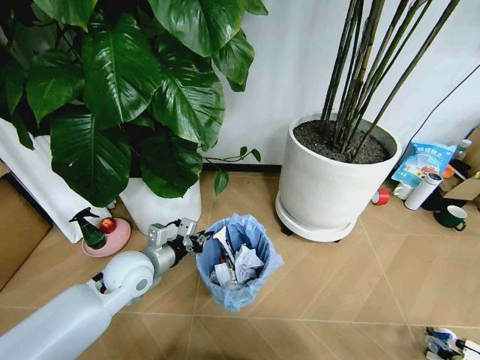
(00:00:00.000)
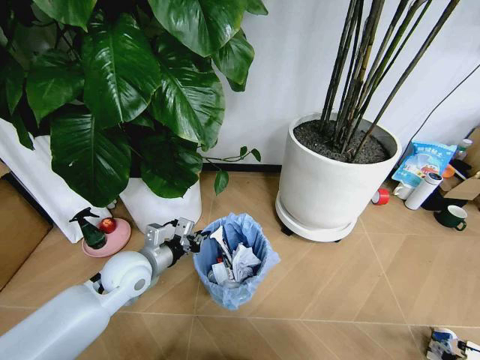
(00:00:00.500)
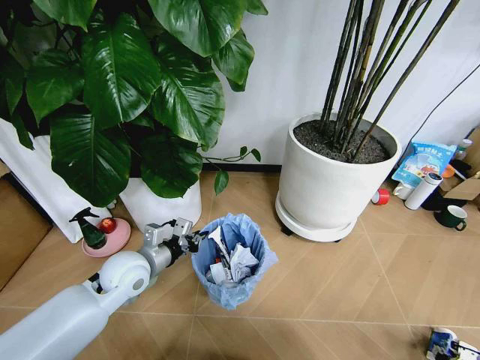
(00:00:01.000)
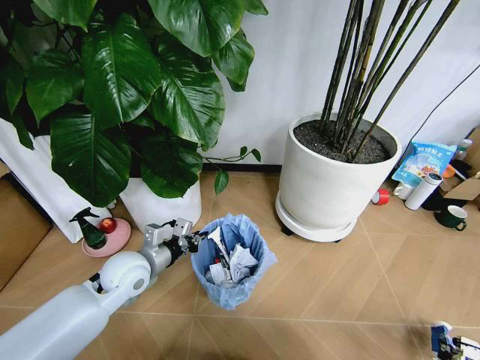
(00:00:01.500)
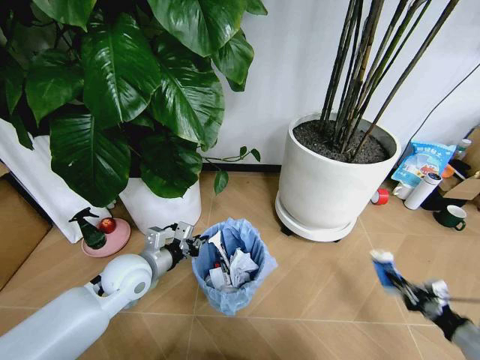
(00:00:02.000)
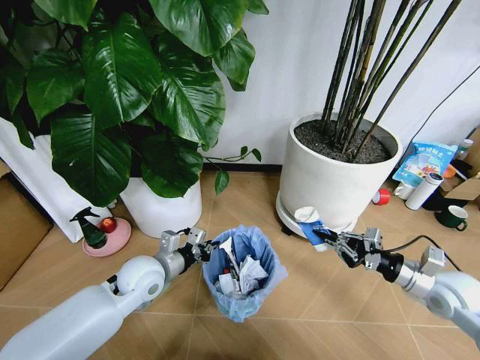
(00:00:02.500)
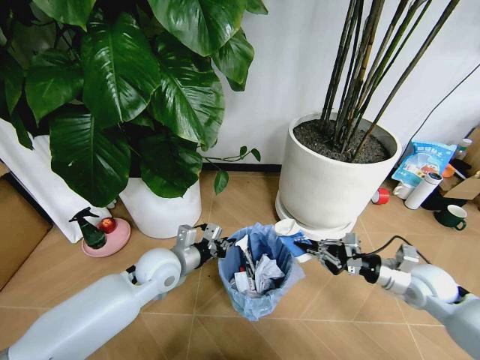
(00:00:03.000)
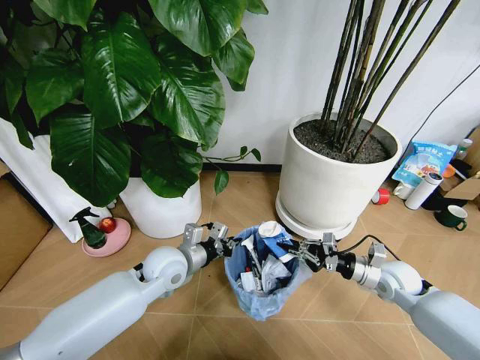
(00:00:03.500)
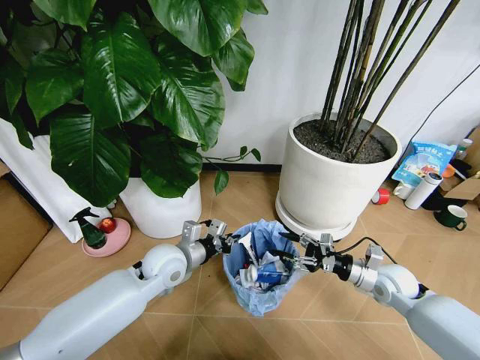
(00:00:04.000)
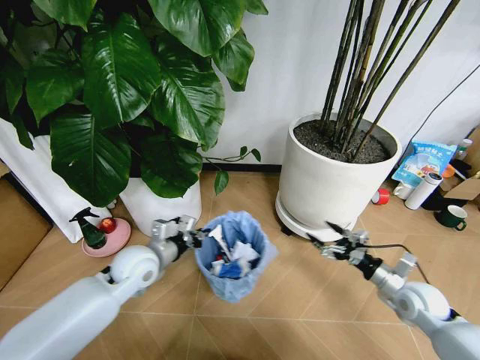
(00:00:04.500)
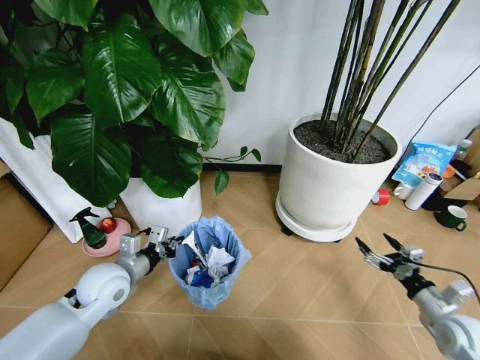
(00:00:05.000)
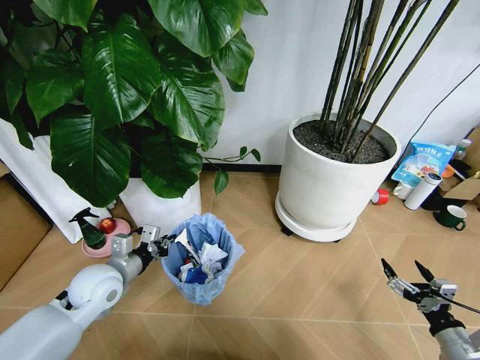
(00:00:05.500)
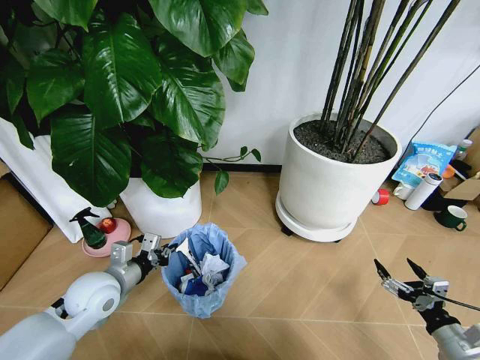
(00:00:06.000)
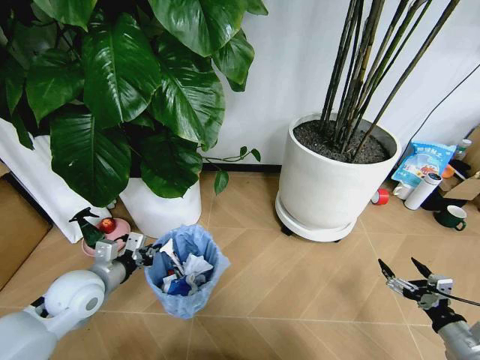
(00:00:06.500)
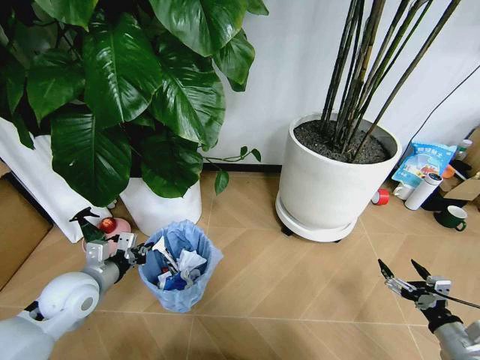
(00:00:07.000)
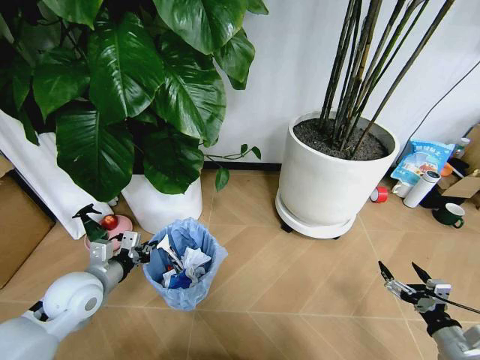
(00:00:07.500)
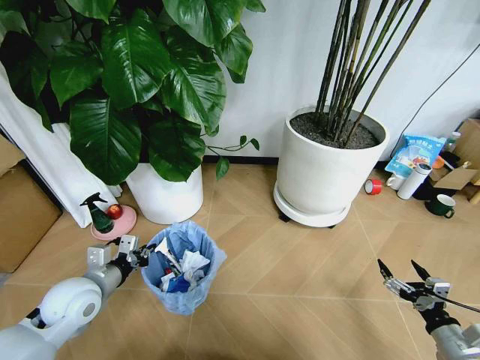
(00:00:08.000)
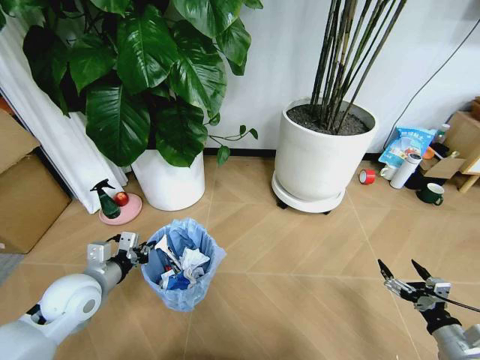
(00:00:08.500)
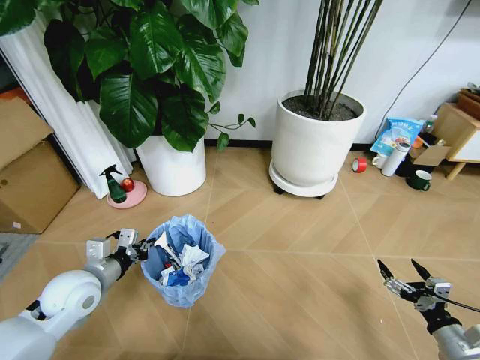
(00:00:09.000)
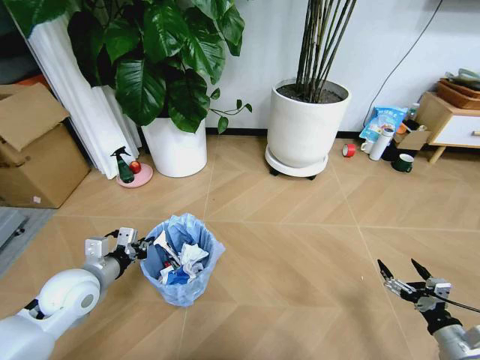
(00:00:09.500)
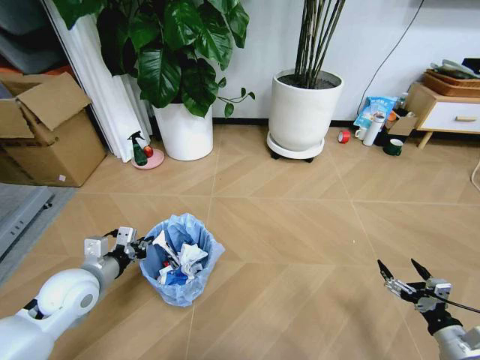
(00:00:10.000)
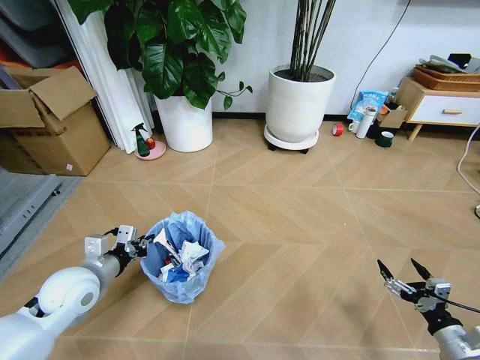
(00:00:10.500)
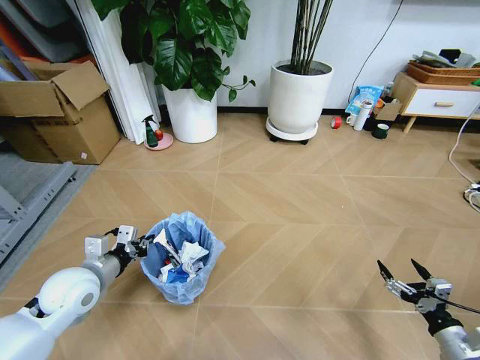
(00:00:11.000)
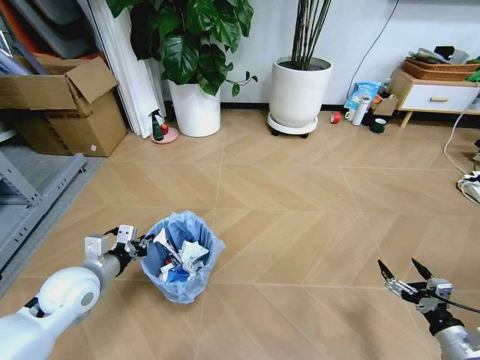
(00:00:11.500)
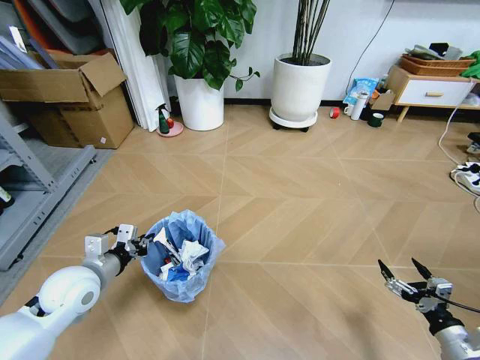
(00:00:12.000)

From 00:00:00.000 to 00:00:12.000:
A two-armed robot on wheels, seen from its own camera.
Task of the whole recording: Pick up the trash bin and place the garbage on the floor into it.
From 00:00:00.000 to 00:00:02.000: The right gripper is displaced upward by approximately 10 cm, and closes its fingers.
From 00:00:02.000 to 00:00:04.000: The left gripper goes roughly 5 cm to the right. Meanwhile the right gripper shifts some 25 cm forward and to the left, and opens.
From 00:00:04.000 to 00:00:06.000: The right gripper moves backward and to the right, some 20 cm, and opens, while the left gripper goes about 15 cm to the left and backward.

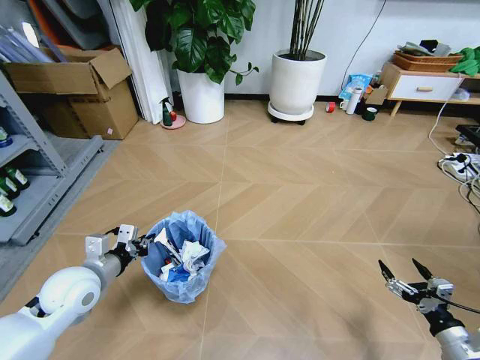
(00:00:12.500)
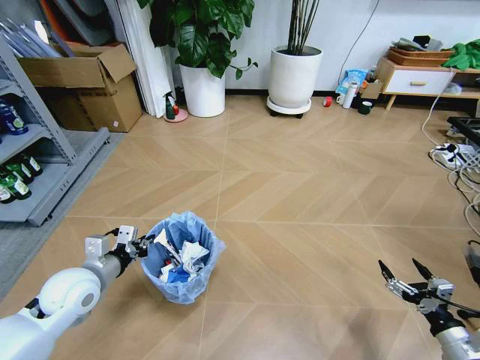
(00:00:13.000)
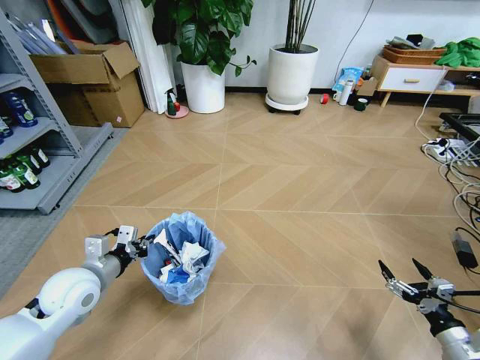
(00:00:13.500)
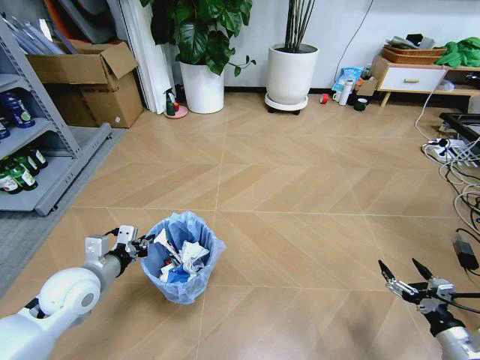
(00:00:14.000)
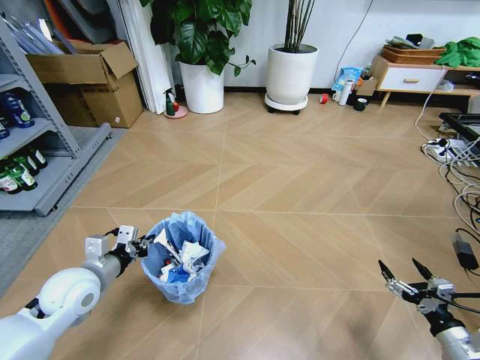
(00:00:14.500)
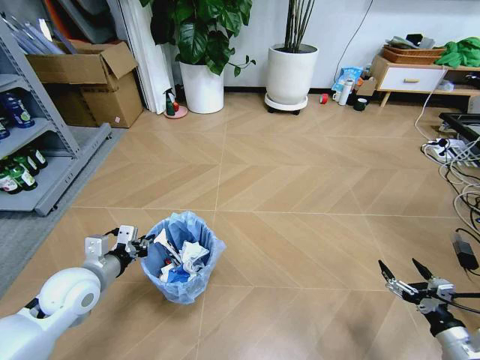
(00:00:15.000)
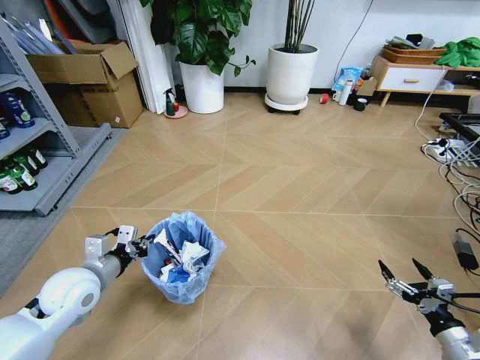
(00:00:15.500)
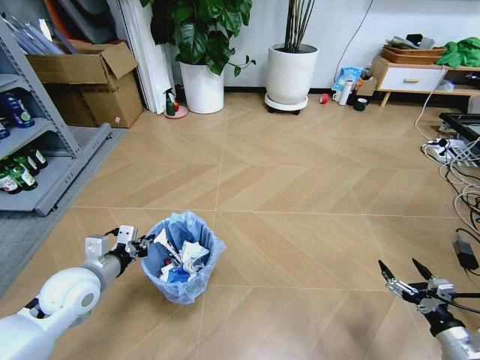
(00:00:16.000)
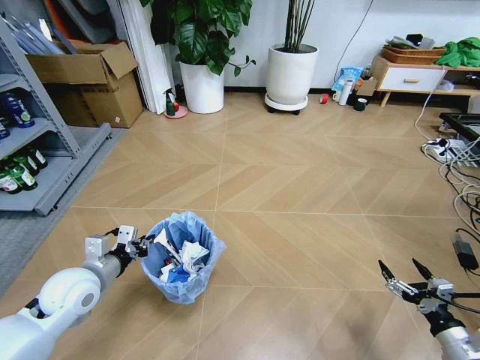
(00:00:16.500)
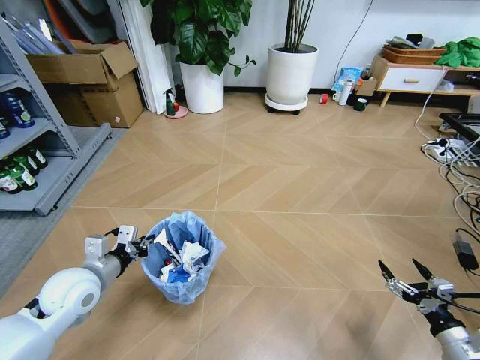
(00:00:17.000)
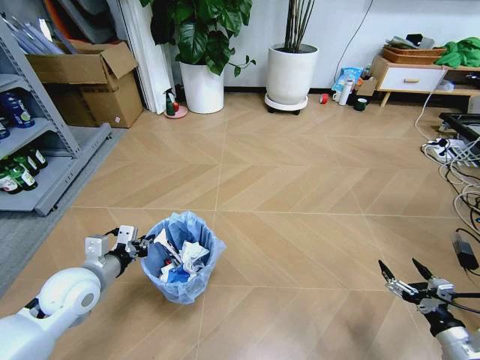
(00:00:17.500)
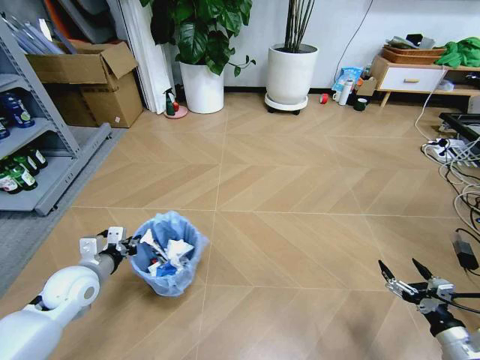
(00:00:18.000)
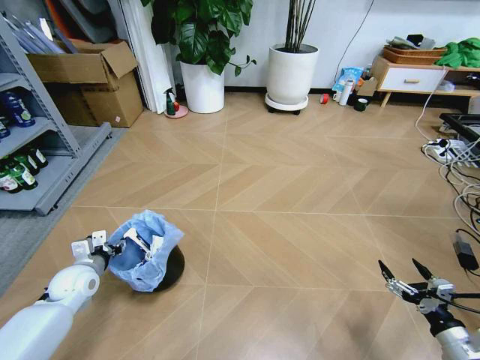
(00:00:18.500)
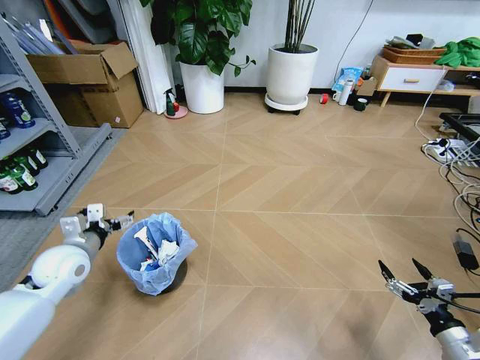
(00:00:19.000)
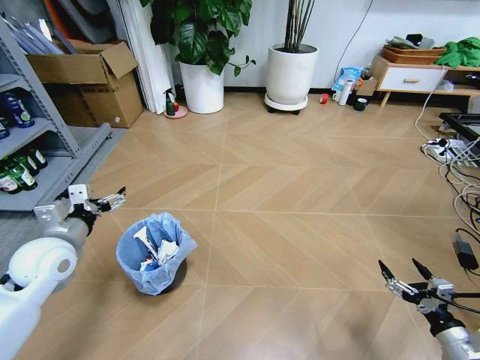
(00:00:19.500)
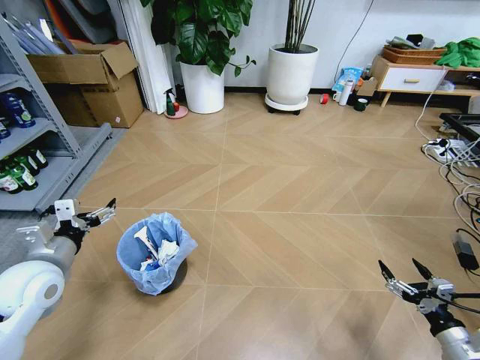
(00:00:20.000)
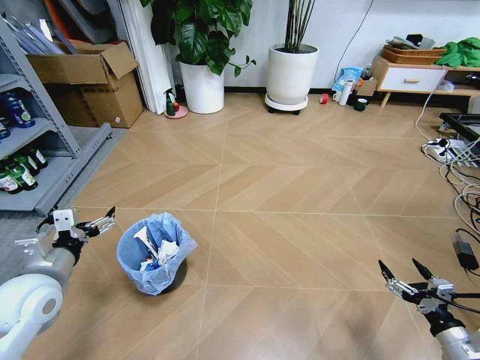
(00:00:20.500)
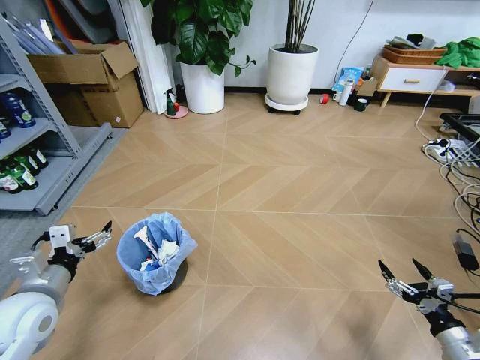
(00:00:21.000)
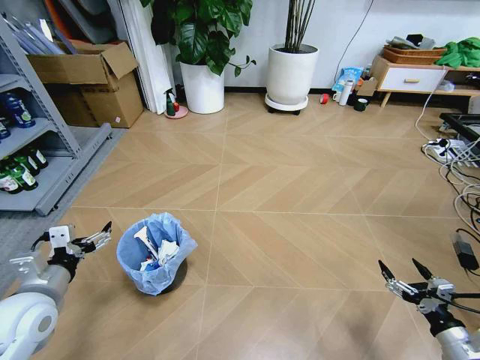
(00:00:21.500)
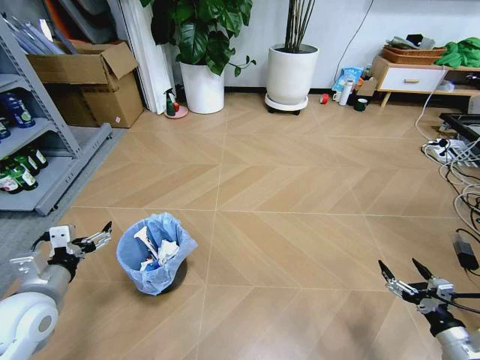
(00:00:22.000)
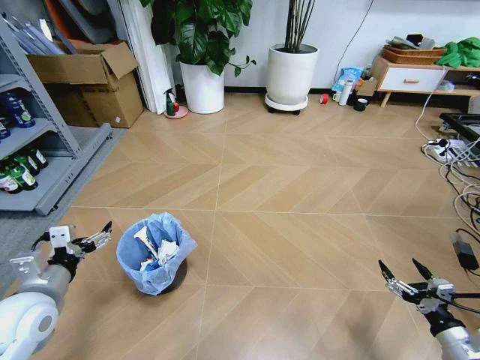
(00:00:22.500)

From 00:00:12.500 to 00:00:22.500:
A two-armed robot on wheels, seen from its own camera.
Task of the whole recording: Pick up the trash bin and place the garbage on the floor into it.
From 00:00:14.500 to 00:00:16.500: Neither gripper changes place.
From 00:00:16.500 to 00:00:18.500: The left gripper goes approximately 15 cm downward, to the left and forward, and opens its fingers.
From 00:00:18.500 to 00:00:20.500: The left gripper heads upward and backward, covering about 15 cm, and opens.
From 00:00:20.500 to 00:00:22.500: There are only small adjustments of the grippers.
